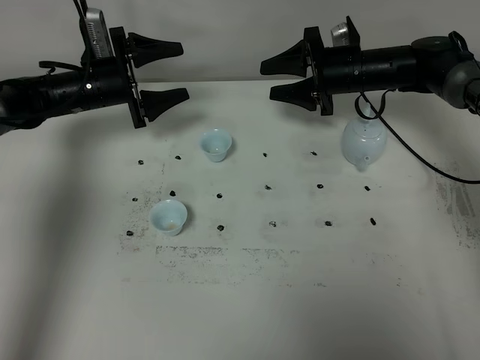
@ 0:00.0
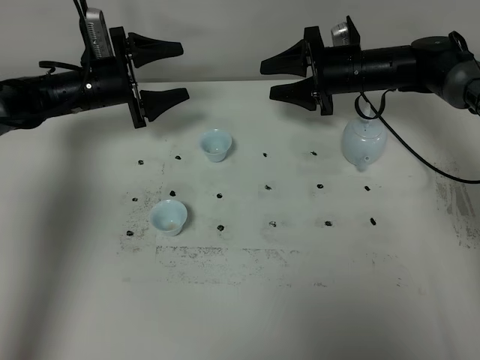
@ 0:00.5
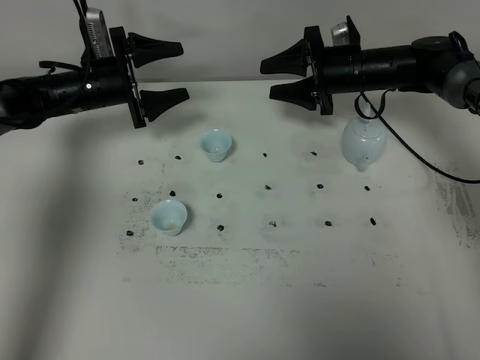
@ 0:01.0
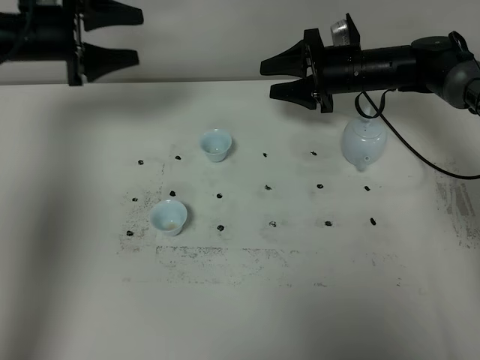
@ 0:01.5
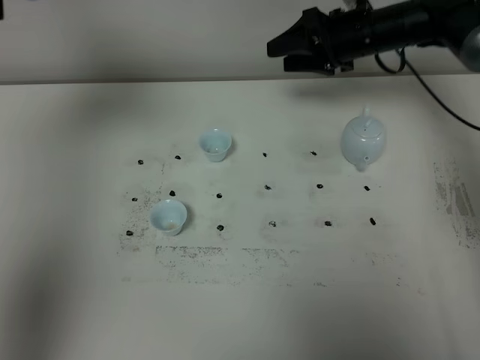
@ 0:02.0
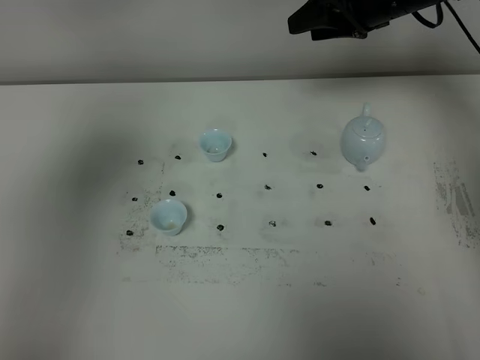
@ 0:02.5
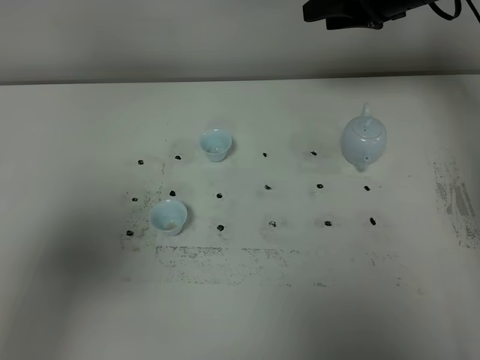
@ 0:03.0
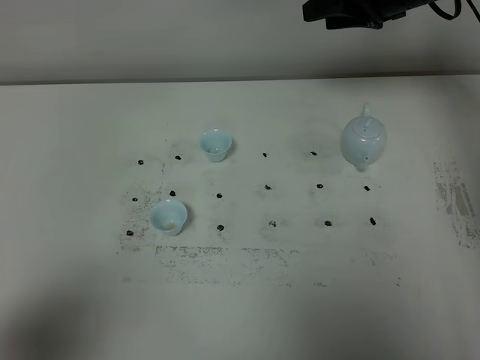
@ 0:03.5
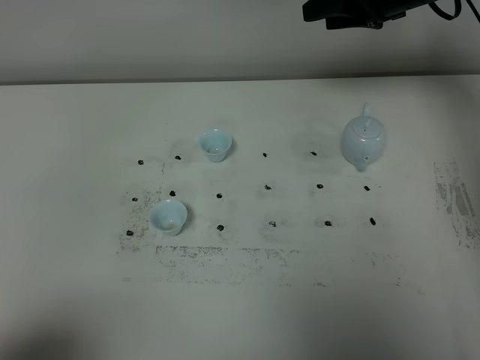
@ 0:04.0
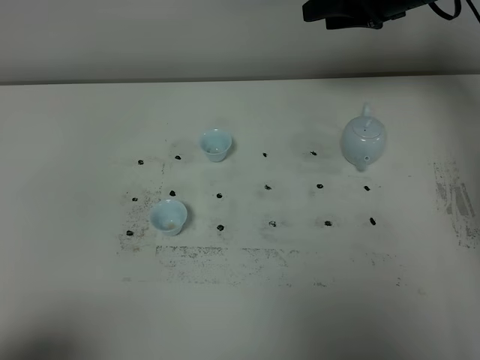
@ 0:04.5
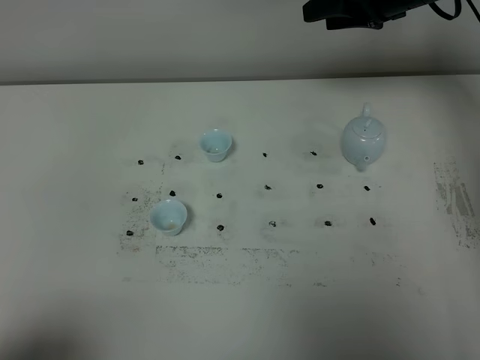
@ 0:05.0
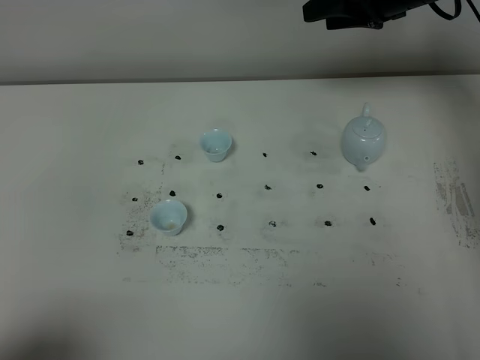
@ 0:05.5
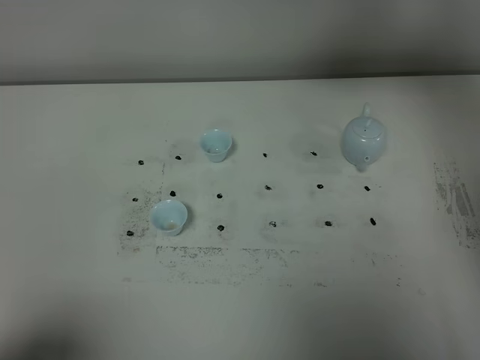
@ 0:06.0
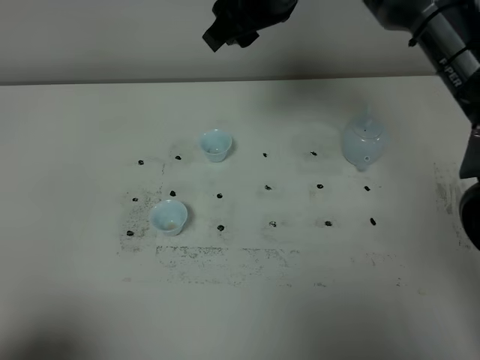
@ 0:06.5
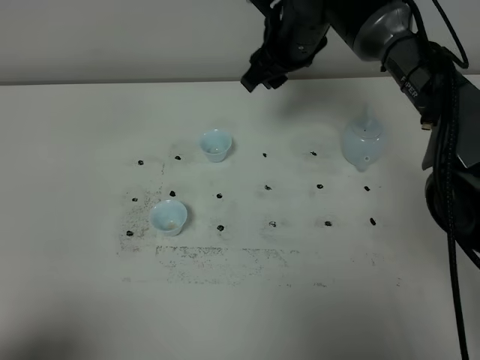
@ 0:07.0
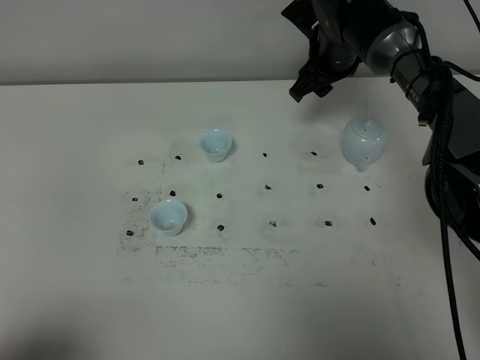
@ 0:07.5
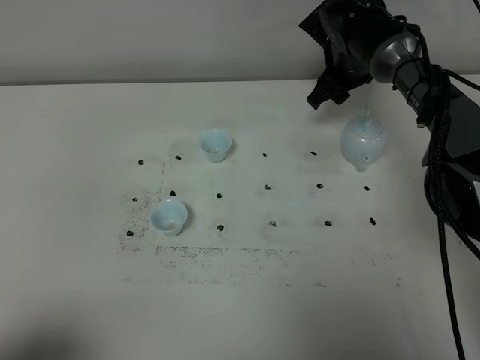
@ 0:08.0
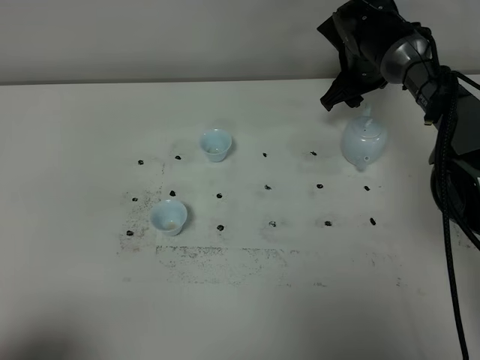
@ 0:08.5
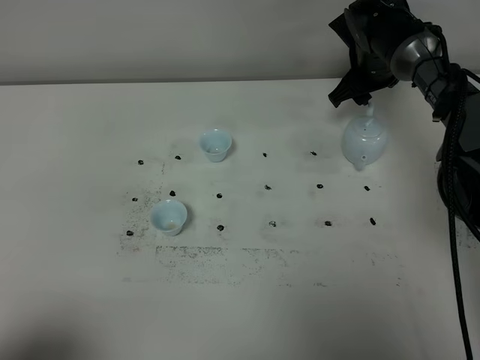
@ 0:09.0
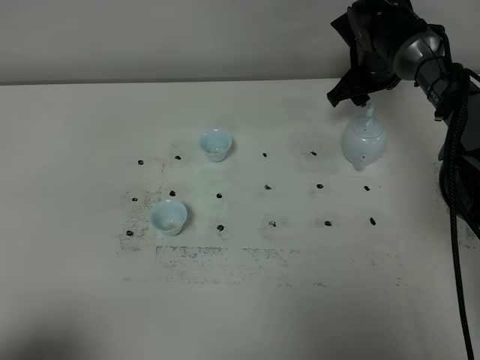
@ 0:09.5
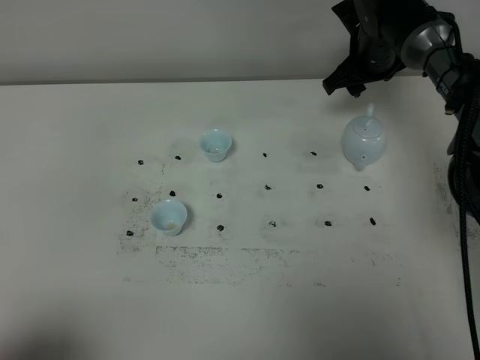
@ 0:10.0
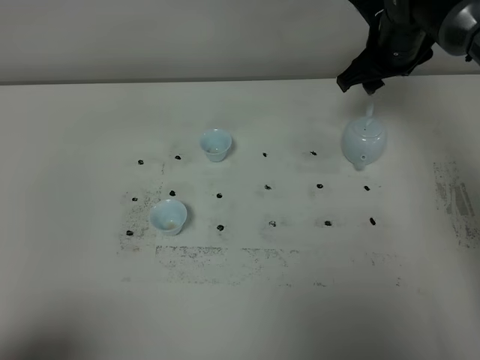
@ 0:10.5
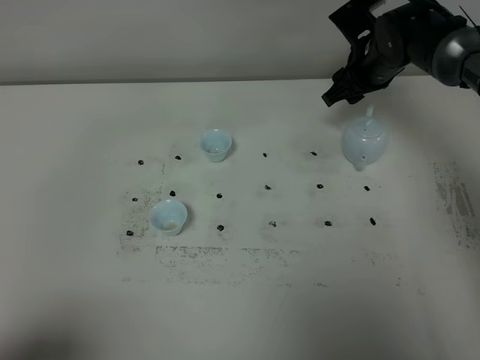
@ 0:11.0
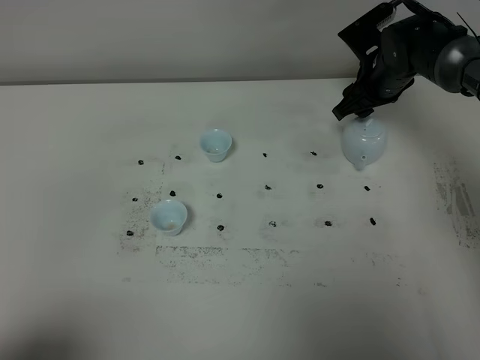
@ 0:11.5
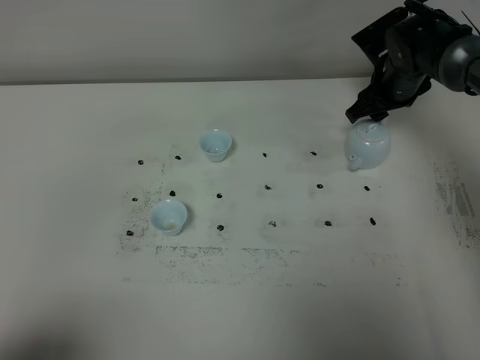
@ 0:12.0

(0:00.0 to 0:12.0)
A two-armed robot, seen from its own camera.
Task of the whole recording: grasp the blue porcelain teapot and pour the tea into the two blue porcelain teacups one by one, put the blue porcelain teapot back in its original place.
0:00.0 - 0:02.0: The right gripper travels upward by about 10 cm. Meanwhile the left gripper travels upward and backward by about 35 cm, and closes up.
0:02.0 - 0:04.0: The right gripper is displaced upward by about 5 cm. The left gripper moves backward and downward, some 35 cm, and closes up.
0:04.0 - 0:06.0: The right gripper is displaced upward and to the left by approximately 10 cm.
0:06.0 - 0:08.0: The right gripper is displaced downward by about 20 cm.
0:08.0 - 0:10.0: The grippers make only small movements.
0:10.0 - 0:12.0: The right gripper changes place by some 5 cm.

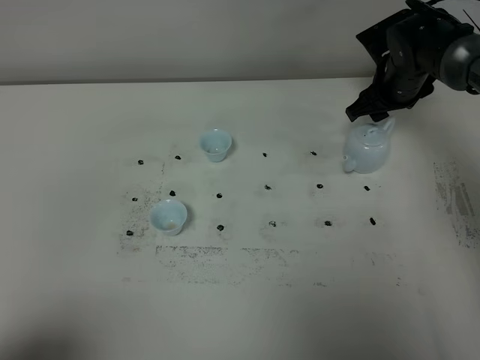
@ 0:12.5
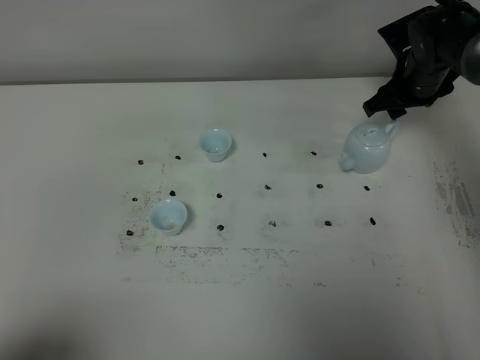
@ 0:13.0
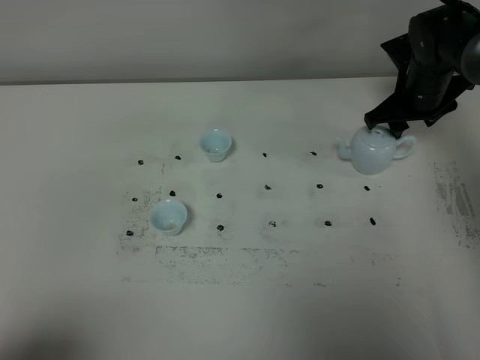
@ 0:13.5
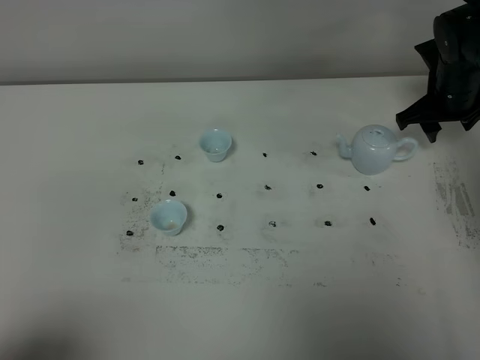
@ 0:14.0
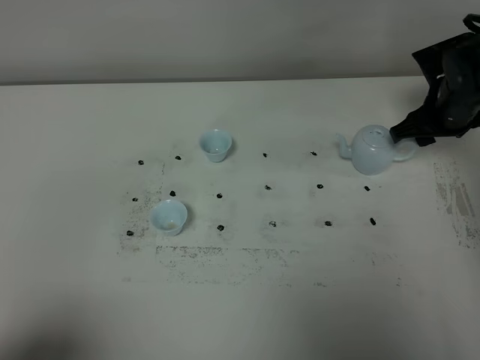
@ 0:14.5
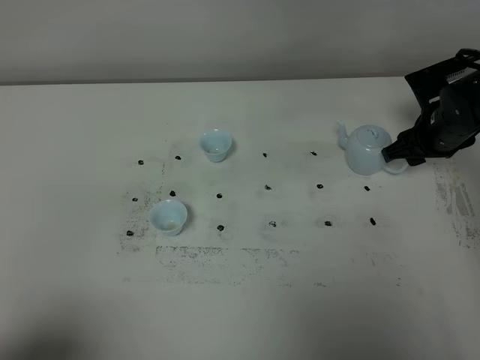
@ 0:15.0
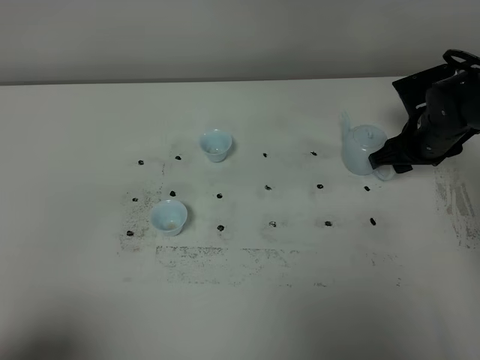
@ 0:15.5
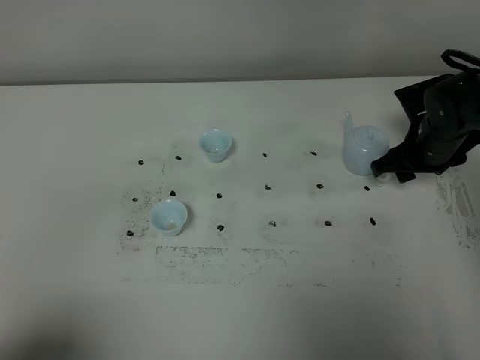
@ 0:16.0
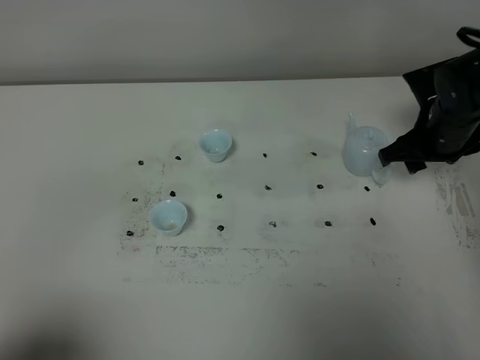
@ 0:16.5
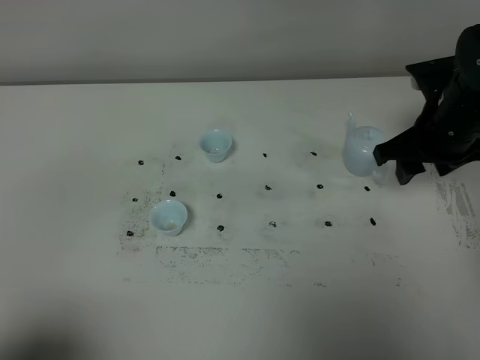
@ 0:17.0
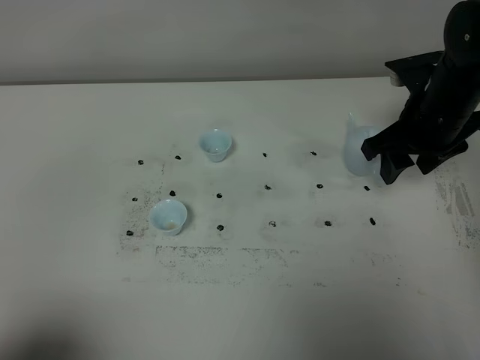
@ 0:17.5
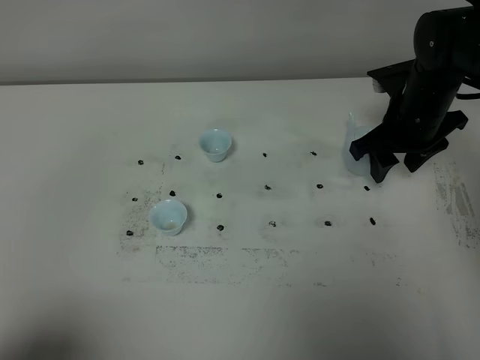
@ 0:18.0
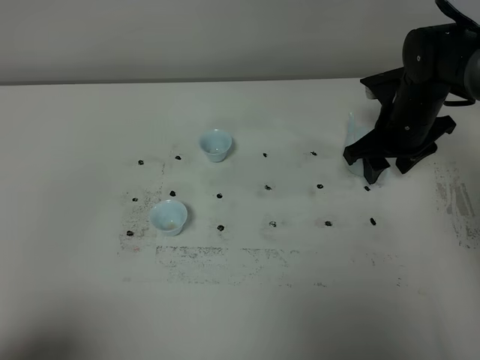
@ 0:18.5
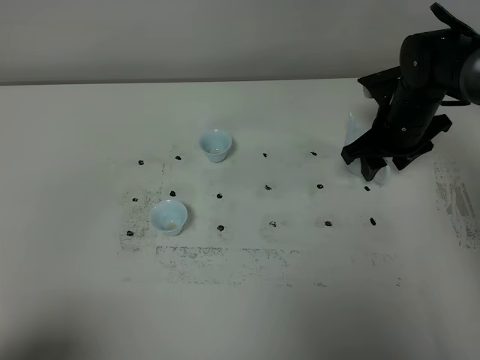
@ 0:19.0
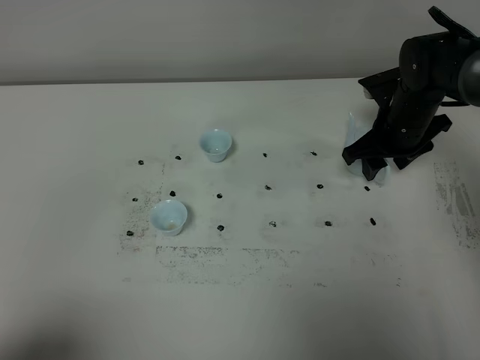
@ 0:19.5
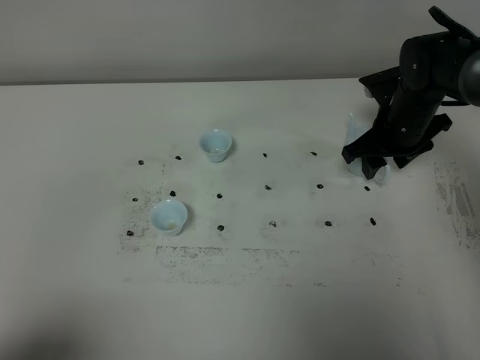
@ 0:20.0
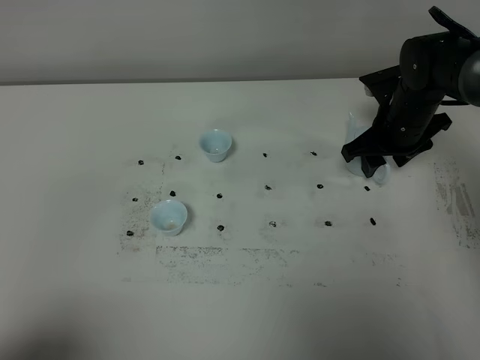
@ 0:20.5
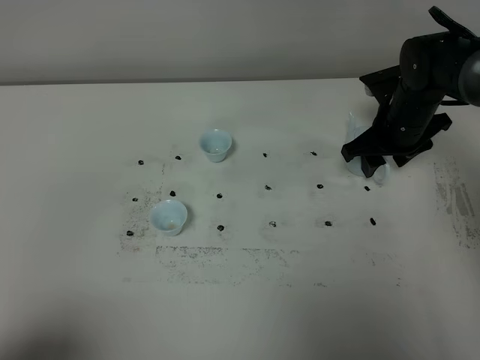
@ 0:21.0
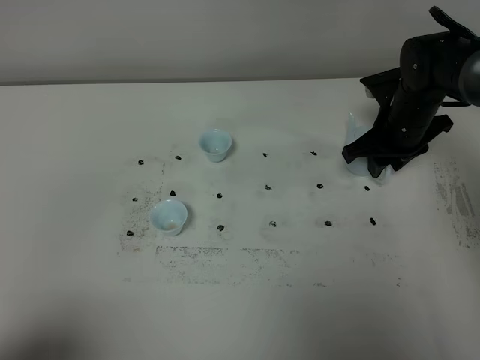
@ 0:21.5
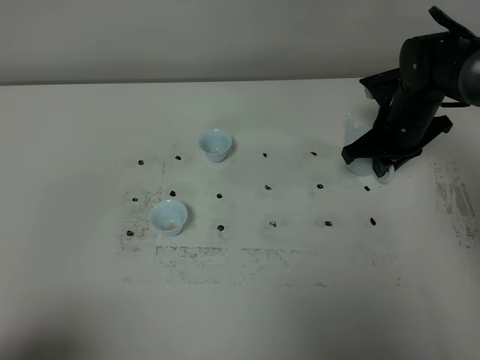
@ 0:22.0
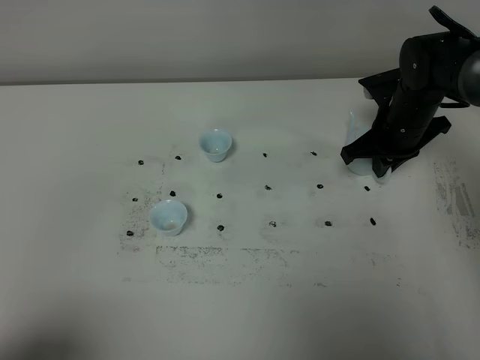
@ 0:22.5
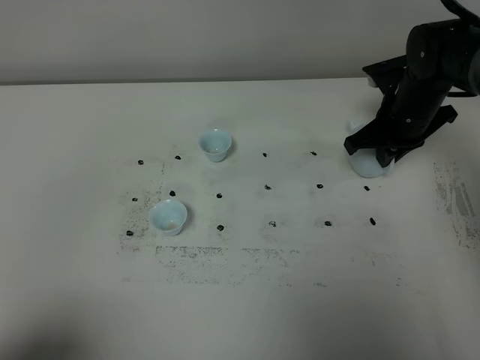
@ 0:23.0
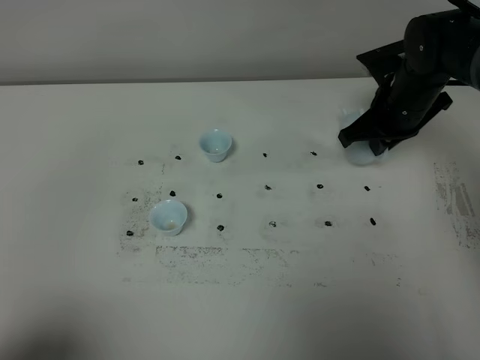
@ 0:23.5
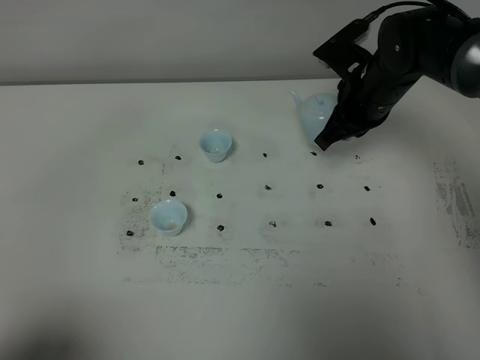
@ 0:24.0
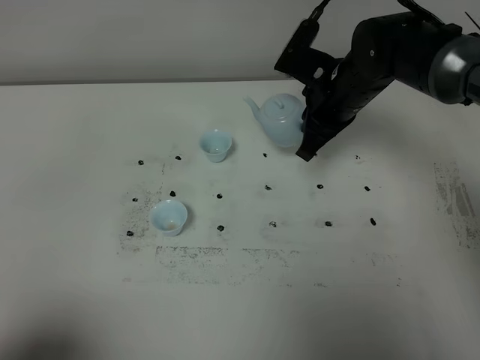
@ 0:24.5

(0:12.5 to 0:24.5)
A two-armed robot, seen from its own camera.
Task of the whole recording: grasp the blue porcelain teapot and pour the tea into the two blue porcelain teacups one by one, put the blue porcelain teapot back in its original place.
Step, 0:12.5 - 0:23.5: Pick up the teapot with the right gripper.
0:12.5 - 0:14.5: The right gripper heads backward, covering about 5 cm.
0:14.5 - 0:16.5: The right gripper changes place by roughly 5 cm.
0:16.5 - 0:18.5: The right gripper ends up some 5 cm from where it was.
0:18.5 - 0:20.5: The grippers make only small movements.
0:20.5 - 0:22.5: The right gripper closes its fingers.
0:22.5 - 0:24.5: The right gripper travels to the left and upward by approximately 10 cm.

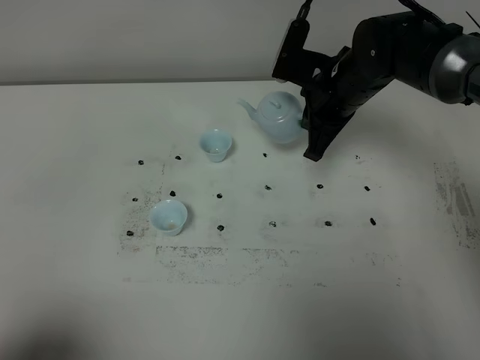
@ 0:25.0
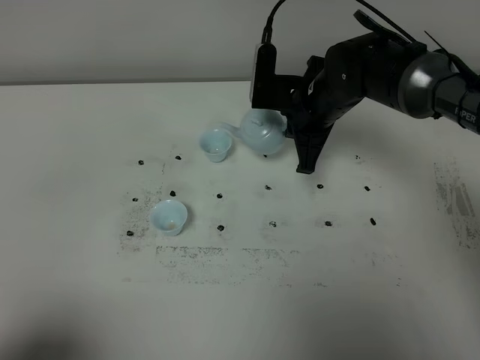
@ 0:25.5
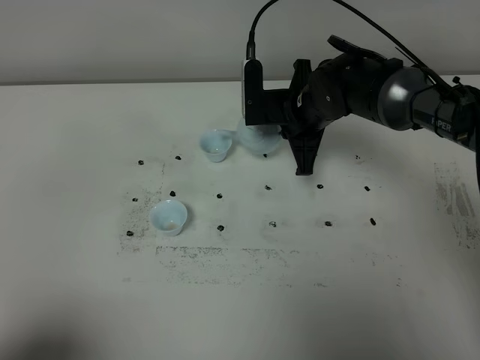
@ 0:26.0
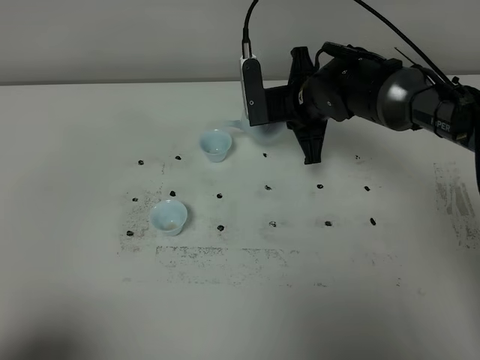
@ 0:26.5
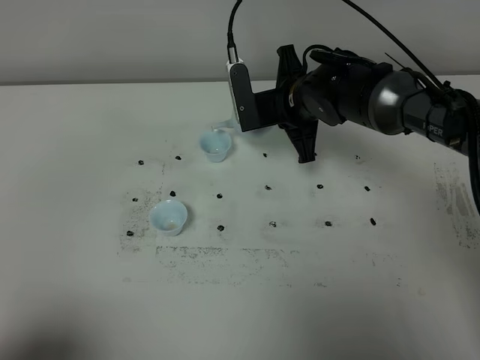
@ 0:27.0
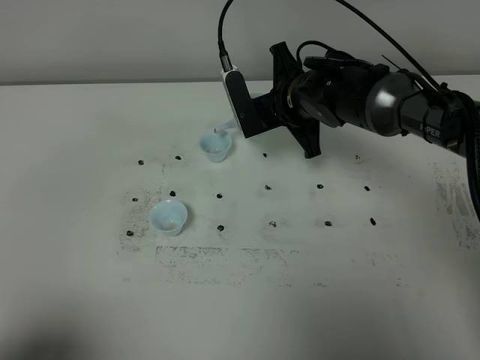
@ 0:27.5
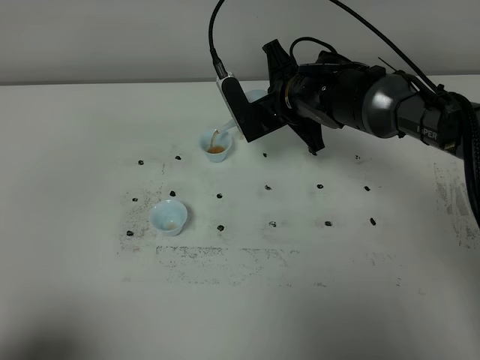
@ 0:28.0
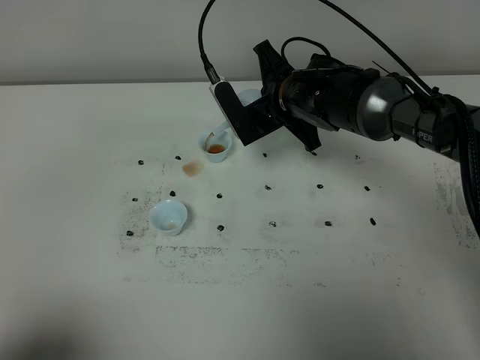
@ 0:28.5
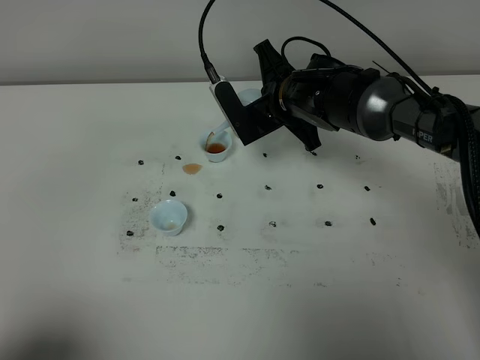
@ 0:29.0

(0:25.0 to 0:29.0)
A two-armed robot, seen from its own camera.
Task of the whole recording: grasp the blue porcelain teapot and pour the tea into the two blue porcelain teacups one by one, put the blue porcelain teapot back in its original place.
0:25.0 - 0:27.0: The right gripper shifts by some 5 cm.
0:27.0 - 0:29.0: The grippers stay close to where they were, moving slightly.
